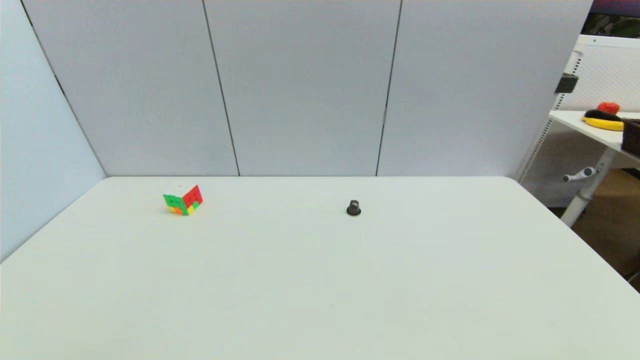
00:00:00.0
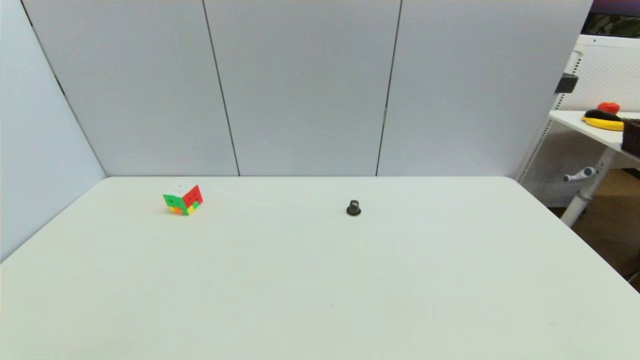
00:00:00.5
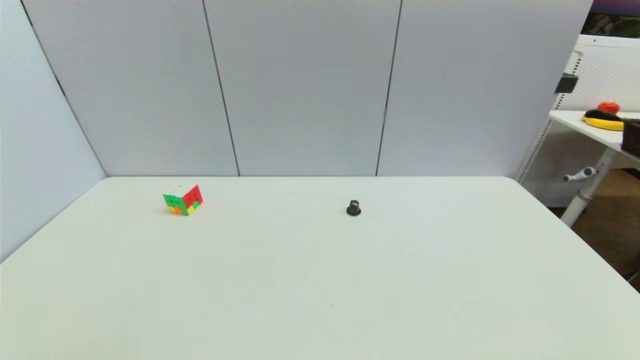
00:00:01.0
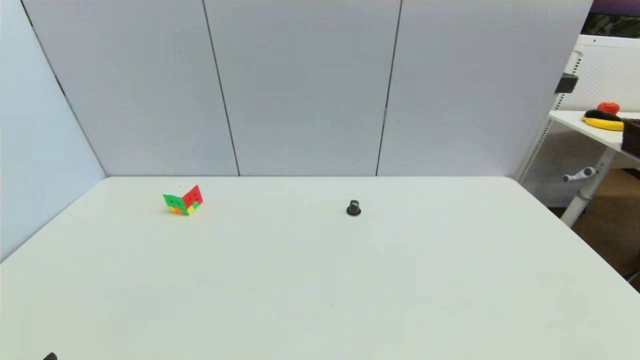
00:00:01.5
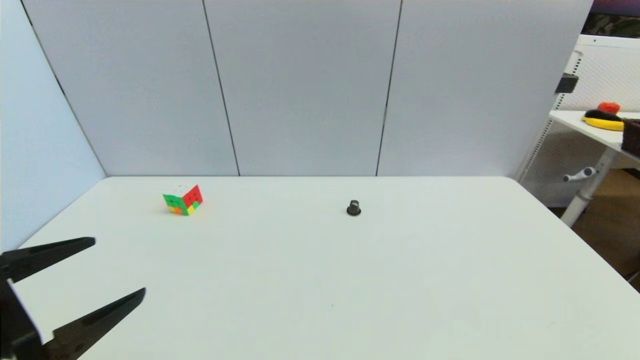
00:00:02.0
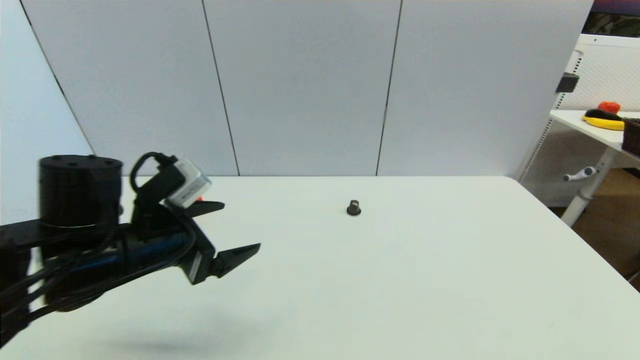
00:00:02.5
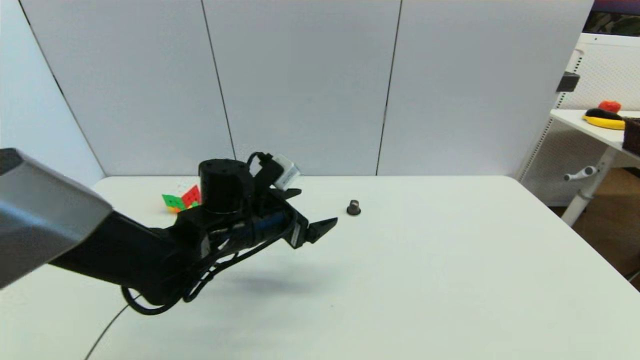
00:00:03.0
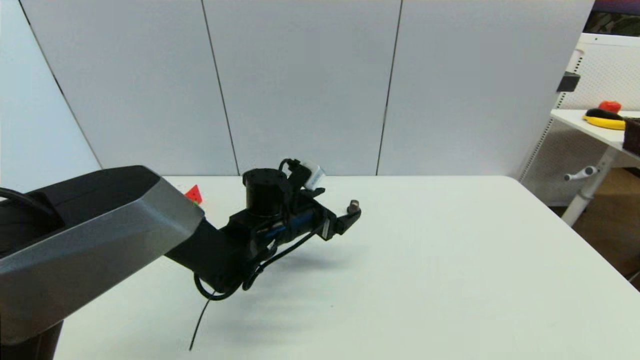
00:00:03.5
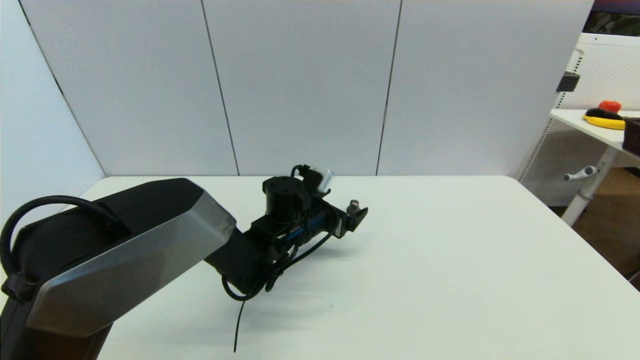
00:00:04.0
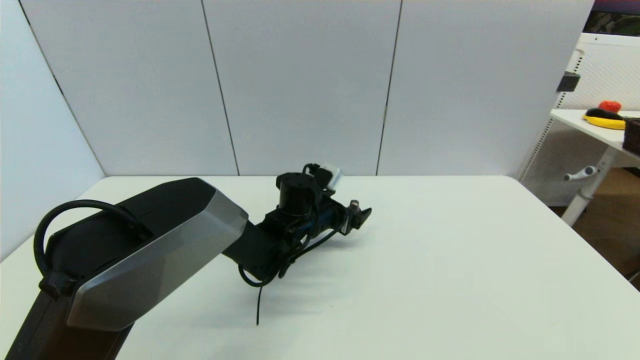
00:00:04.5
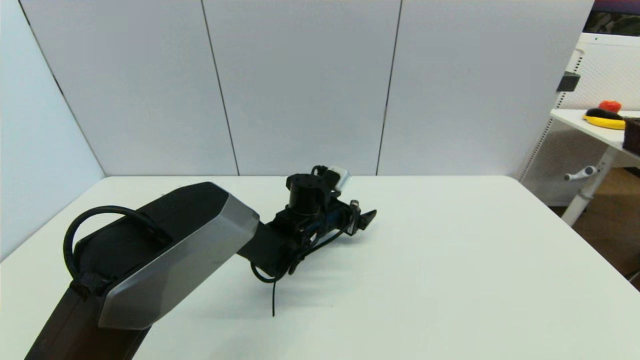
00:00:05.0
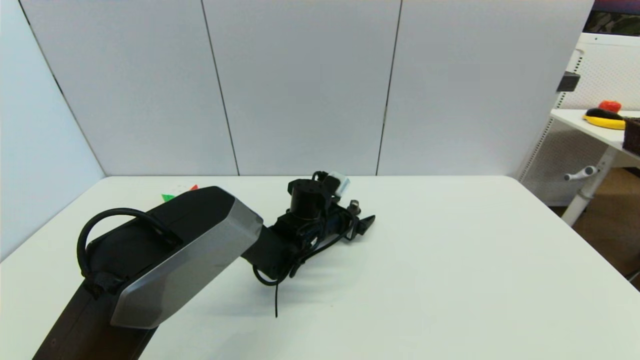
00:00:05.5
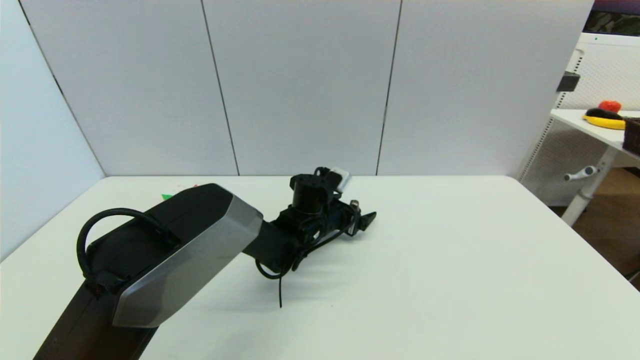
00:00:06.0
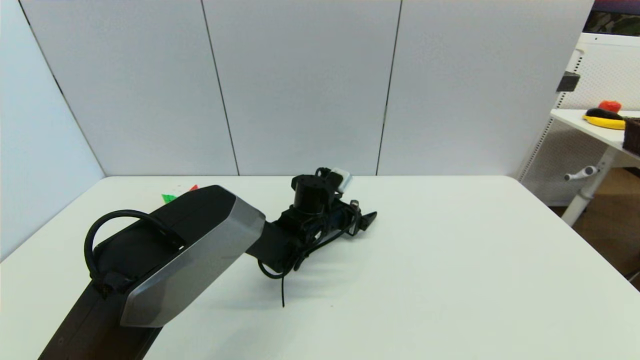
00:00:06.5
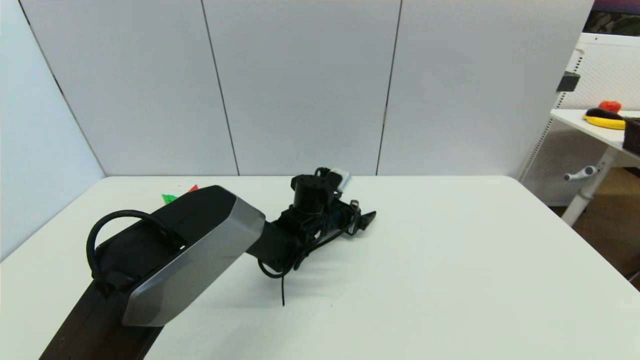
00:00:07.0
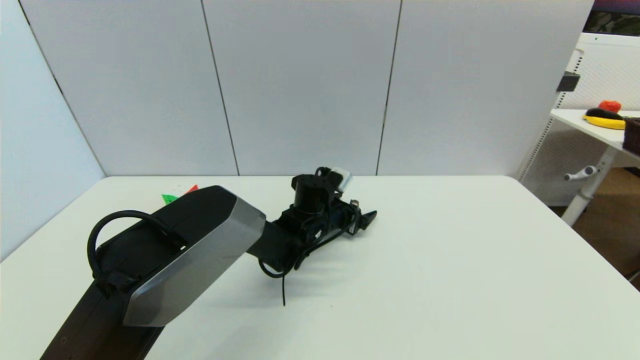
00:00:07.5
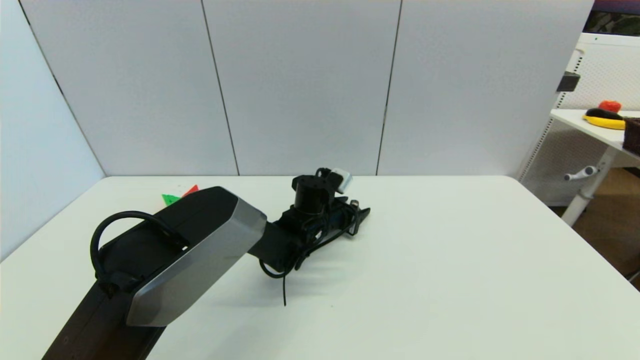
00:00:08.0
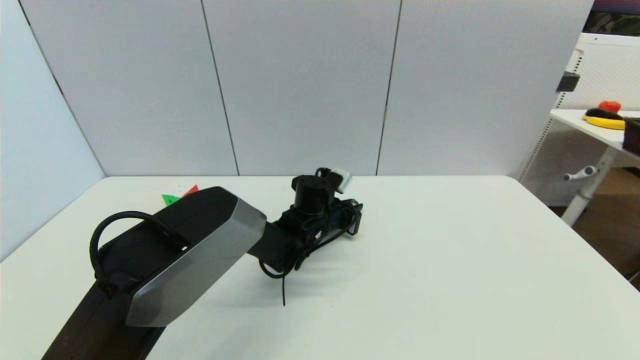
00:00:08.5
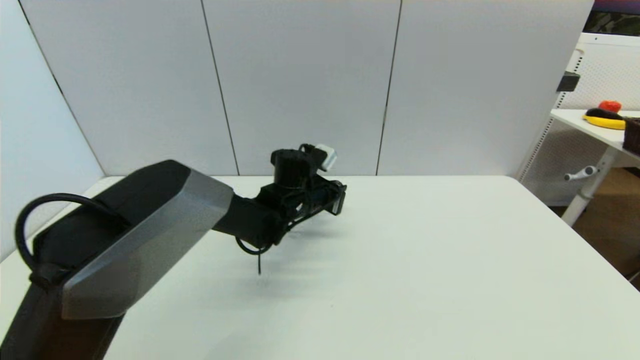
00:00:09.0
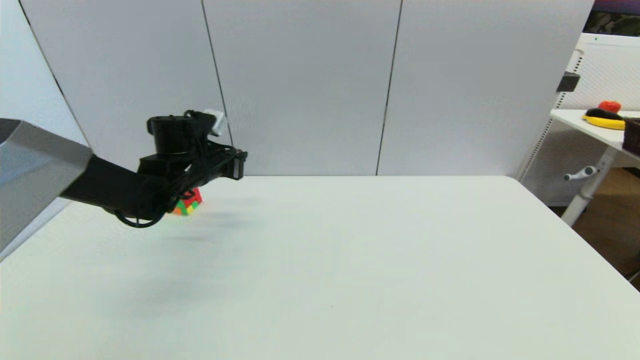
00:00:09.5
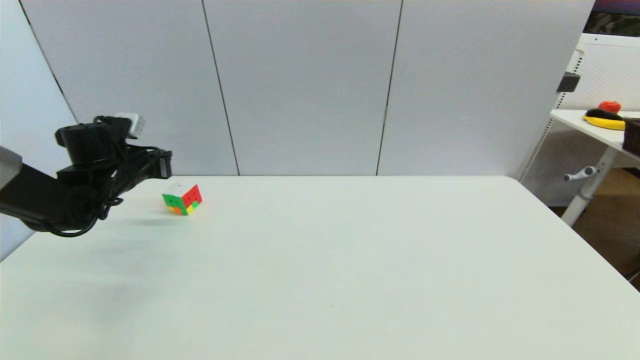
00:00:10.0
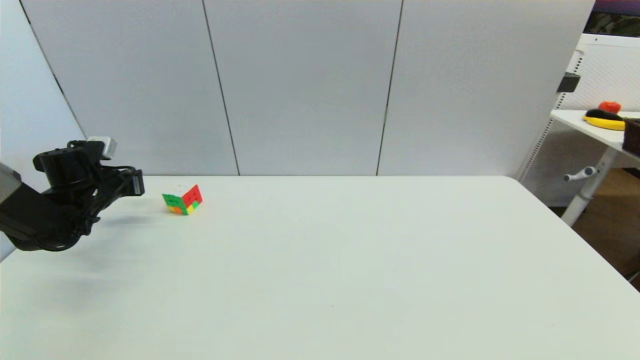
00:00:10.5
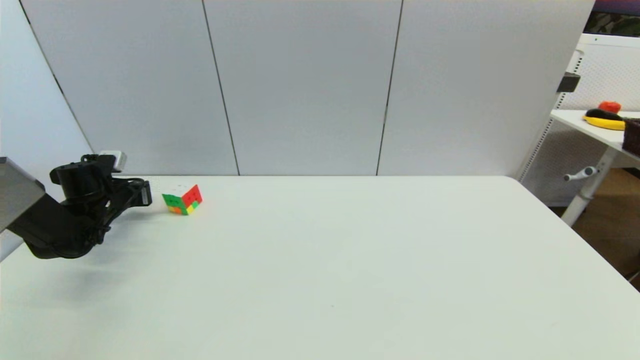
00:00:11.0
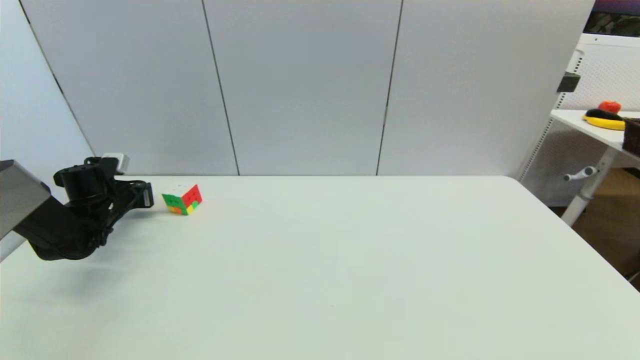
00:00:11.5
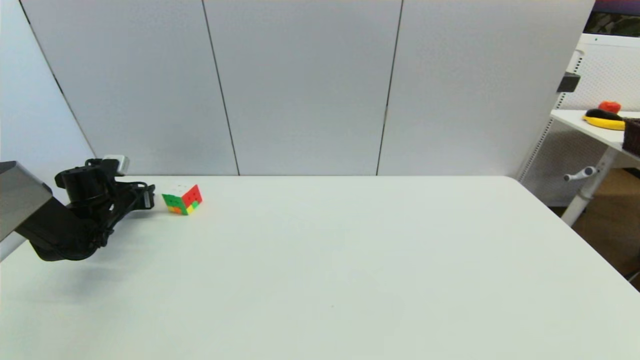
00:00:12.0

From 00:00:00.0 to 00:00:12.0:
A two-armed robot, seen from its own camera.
Step, from 00:00:01.5 to 00:00:08.0: Grasp the coffee capsule with left gripper.
Step, from 00:00:08.5 to 00:00:12.0: Place the coffee capsule on the table with left gripper.
From 00:00:00.0 to 00:00:02.0: The left gripper goes roughly 15 cm upward and forward.
From 00:00:02.0 to 00:00:04.0: The left gripper is displaced forward, to the right and downward by approximately 40 cm.
From 00:00:04.0 to 00:00:06.0: The left gripper ends up some 5 cm from where it was.
From 00:00:06.0 to 00:00:08.0: The left gripper closes up.
From 00:00:08.0 to 00:00:10.0: The left gripper goes approximately 35 cm to the left, and closes its fingers.
From 00:00:10.0 to 00:00:12.0: The left gripper travels downward and to the left by about 10 cm.

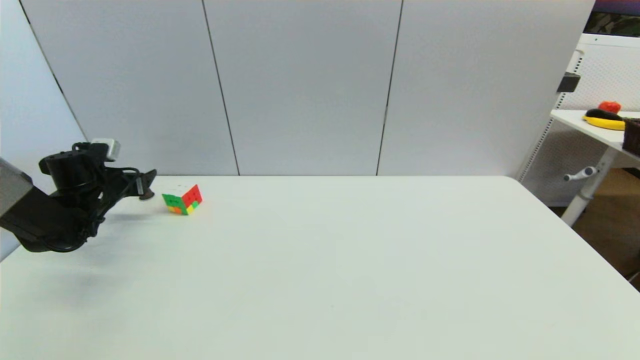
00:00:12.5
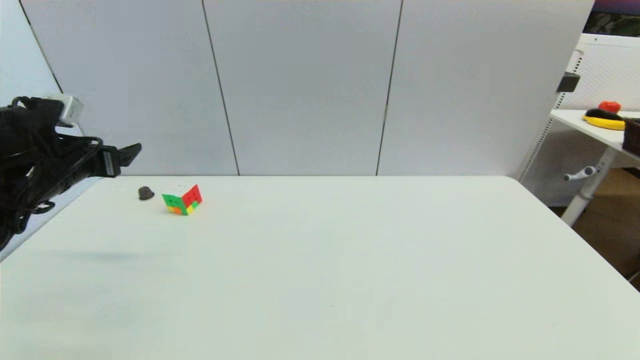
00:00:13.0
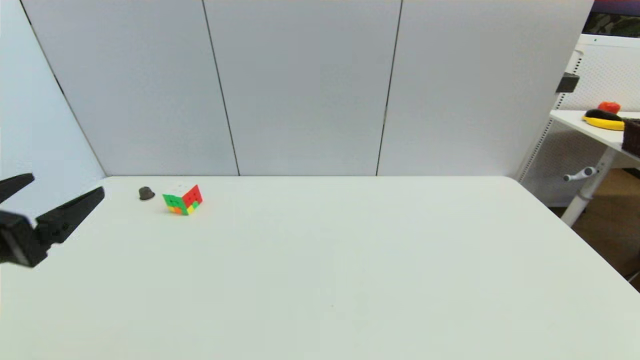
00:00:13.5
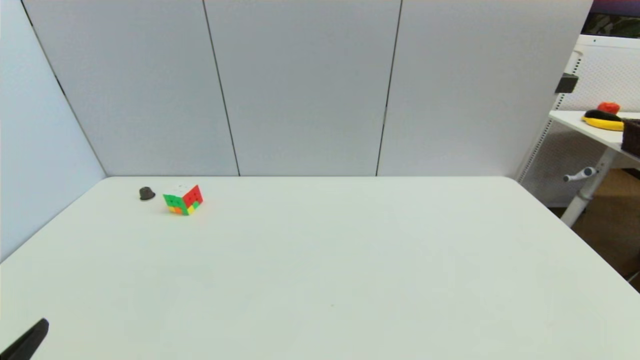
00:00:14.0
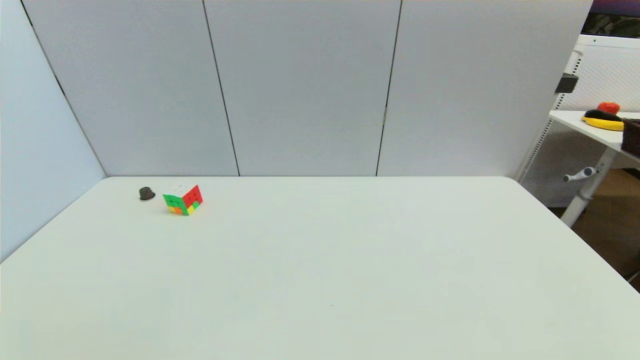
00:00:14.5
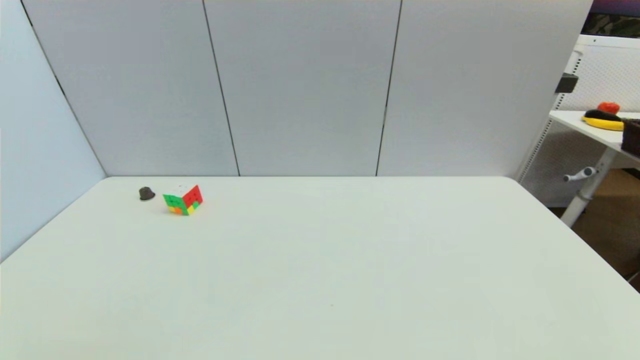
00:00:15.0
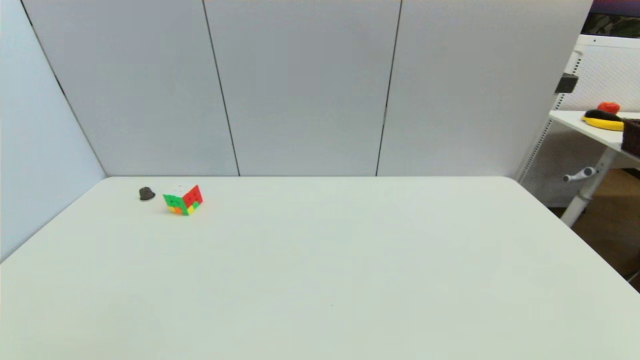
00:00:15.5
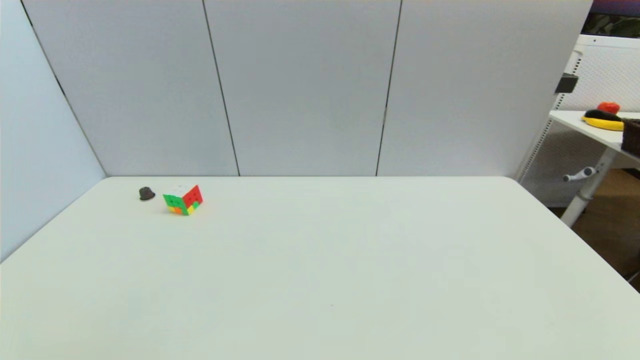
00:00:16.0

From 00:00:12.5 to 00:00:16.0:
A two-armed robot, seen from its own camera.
From 00:00:12.5 to 00:00:14.5: The left gripper shifts some 40 cm backward.
